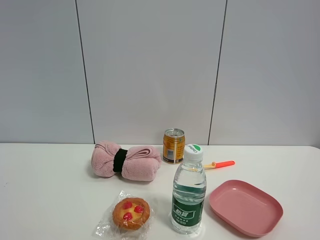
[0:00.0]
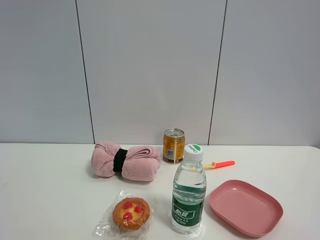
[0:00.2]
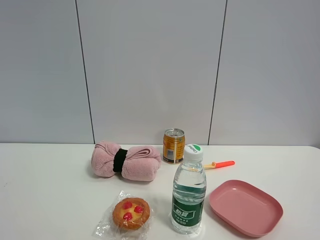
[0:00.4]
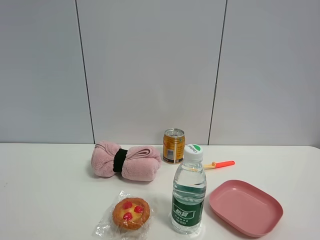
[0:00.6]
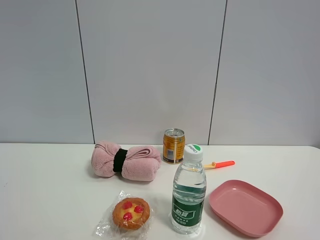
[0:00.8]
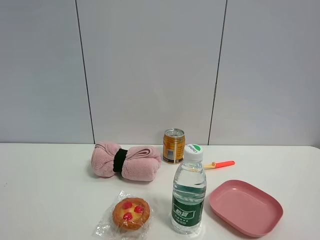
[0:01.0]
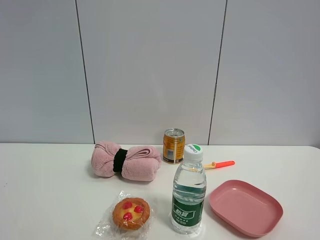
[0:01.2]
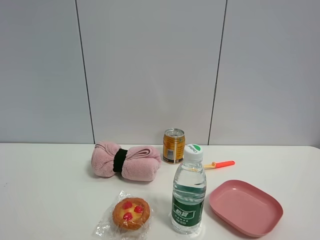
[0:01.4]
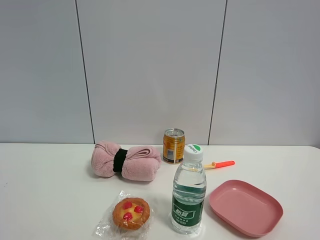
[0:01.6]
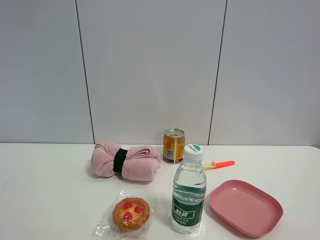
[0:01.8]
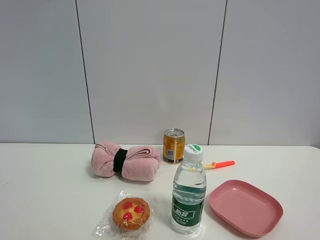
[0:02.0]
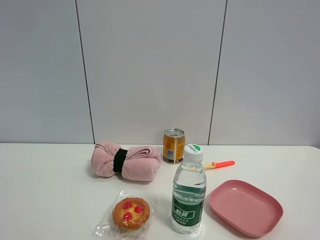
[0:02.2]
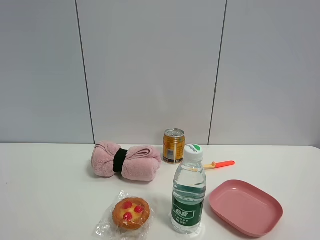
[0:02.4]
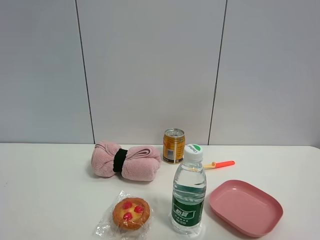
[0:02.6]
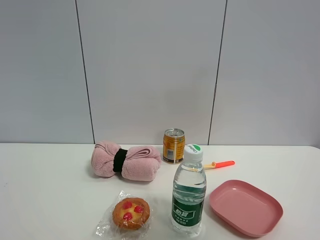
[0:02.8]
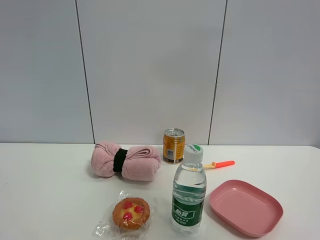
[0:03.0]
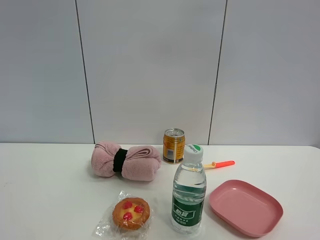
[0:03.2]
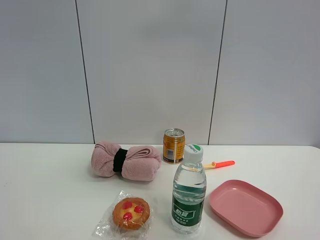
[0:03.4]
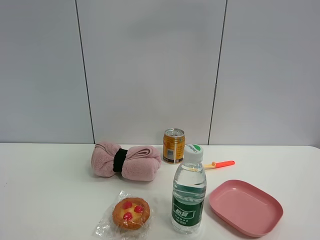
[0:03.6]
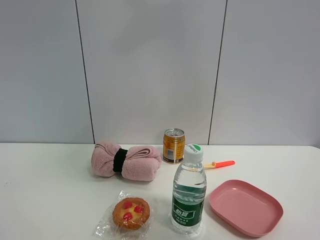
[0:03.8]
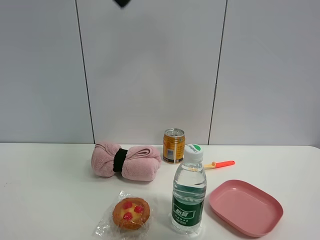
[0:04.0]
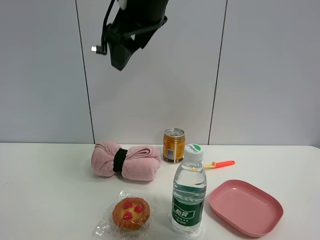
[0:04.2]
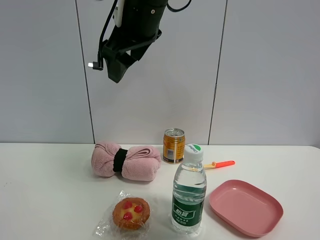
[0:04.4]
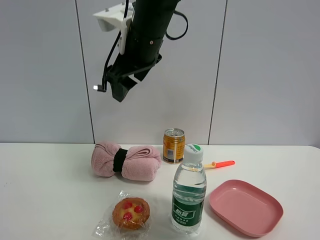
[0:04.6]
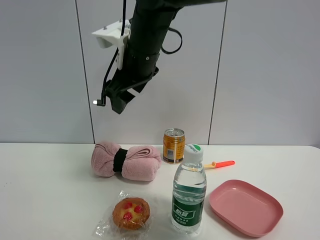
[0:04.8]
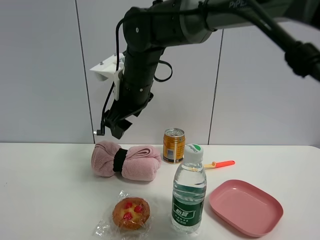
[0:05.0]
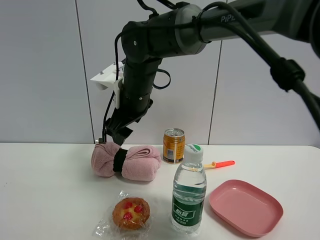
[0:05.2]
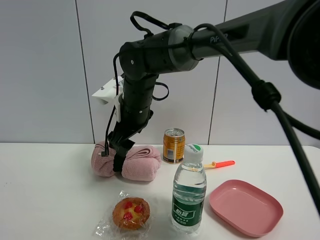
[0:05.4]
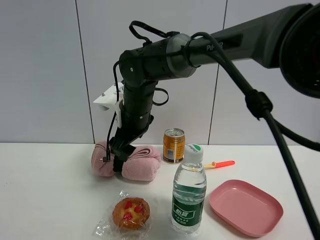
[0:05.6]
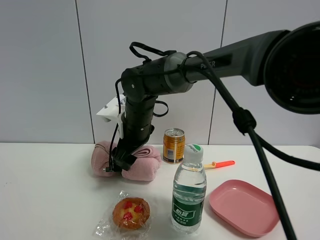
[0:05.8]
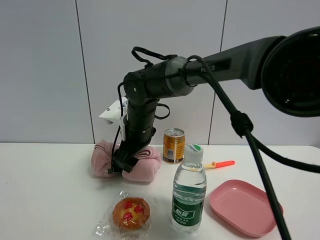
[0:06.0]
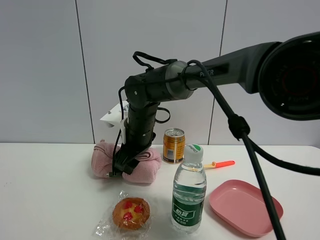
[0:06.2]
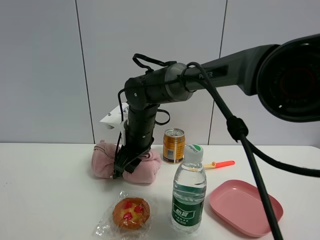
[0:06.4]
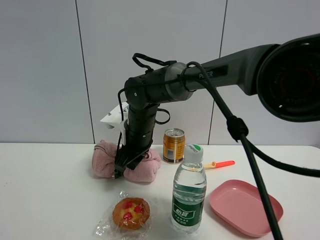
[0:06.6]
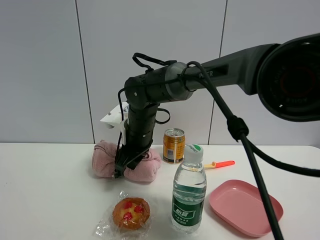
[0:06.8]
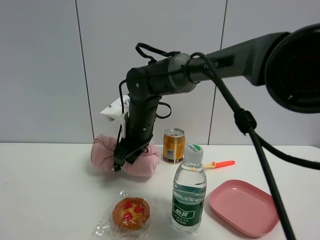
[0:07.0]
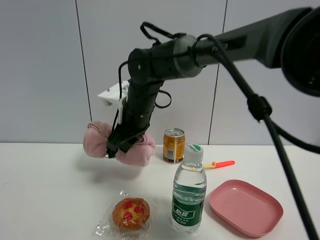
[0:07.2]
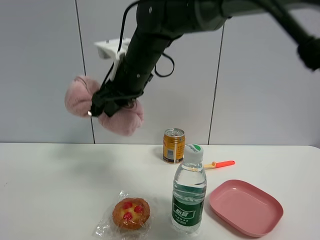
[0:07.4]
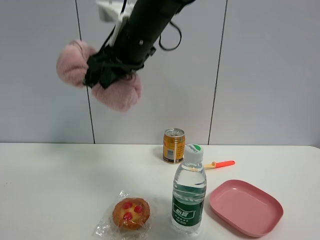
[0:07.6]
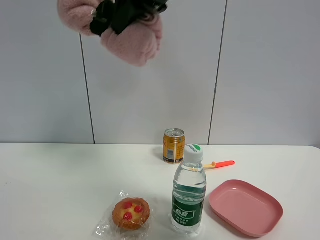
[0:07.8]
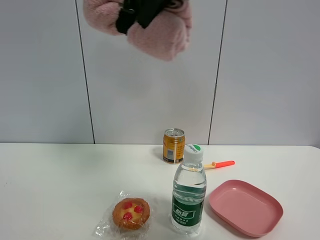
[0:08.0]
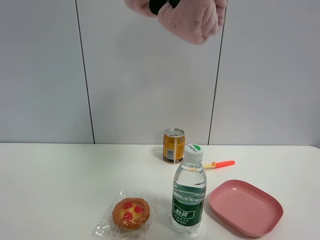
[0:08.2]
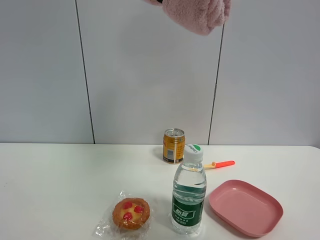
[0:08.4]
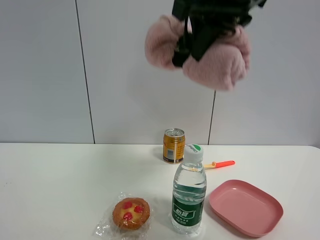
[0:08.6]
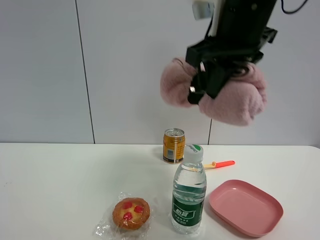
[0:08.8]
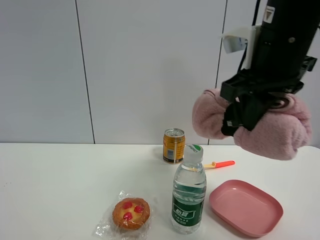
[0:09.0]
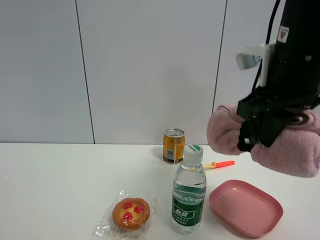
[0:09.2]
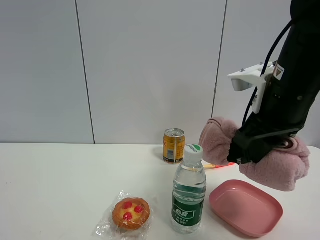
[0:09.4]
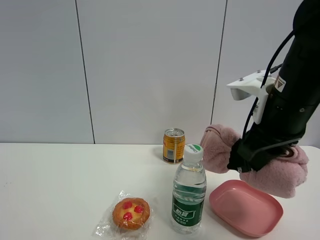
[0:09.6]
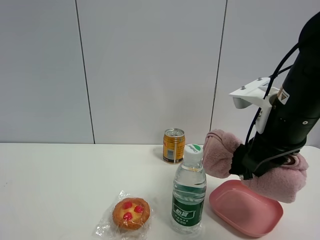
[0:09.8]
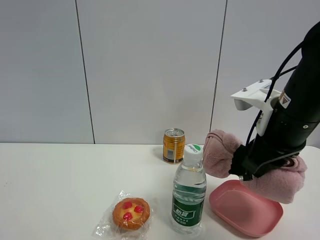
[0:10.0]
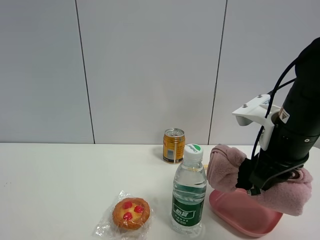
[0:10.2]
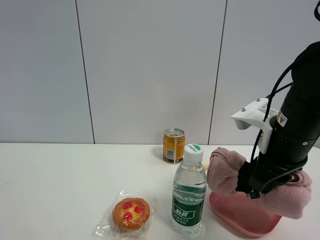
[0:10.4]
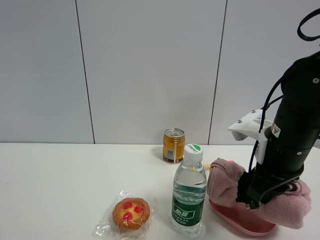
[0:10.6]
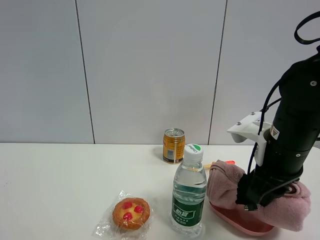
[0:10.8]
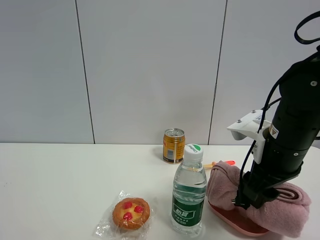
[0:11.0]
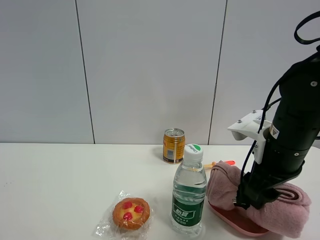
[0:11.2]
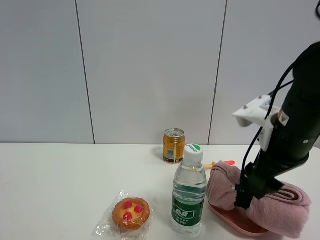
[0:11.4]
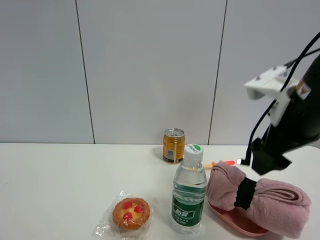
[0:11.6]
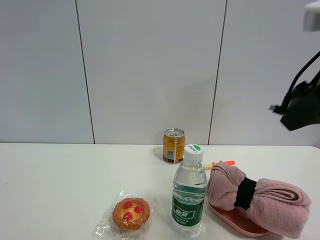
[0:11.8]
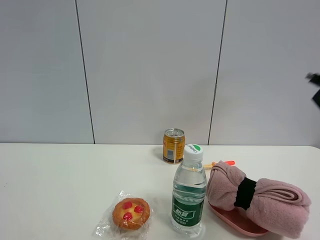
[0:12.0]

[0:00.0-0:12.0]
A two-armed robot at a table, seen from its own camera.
Task of the whole recording: the gripper move the object.
Step, 0:00.0 to 0:06.4: Grasp the pink towel with the right gripper.
Step, 0:06.6 to 0:11.4: Place the pink towel into the pink plate with the right gripper.
0:00.0 to 0:01.6: Neither gripper changes place.
0:01.6 to 0:03.0: The right gripper travels upward and forward by about 25 cm.
0:03.0 to 0:04.4: The right gripper shifts approximately 35 cm to the left, forward and downward.
0:04.4 to 0:06.0: The right gripper travels downward by roughly 20 cm.
0:06.0 to 0:07.6: The right gripper heads upward, covering roughly 20 cm, and closes up.
0:07.6 to 0:09.0: The right gripper travels to the right and backward by some 20 cm.
0:09.0 to 0:10.4: The right gripper heads downward, covering approximately 10 cm.
0:10.4 to 0:12.0: The right gripper moves upward, backward and to the right, some 20 cm, and opens its fingers.

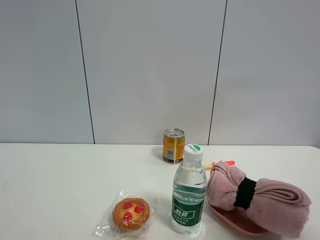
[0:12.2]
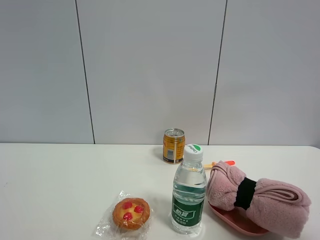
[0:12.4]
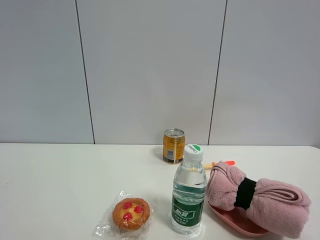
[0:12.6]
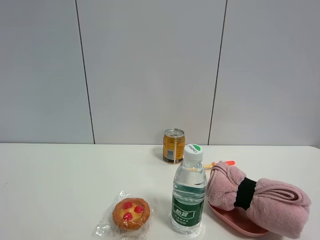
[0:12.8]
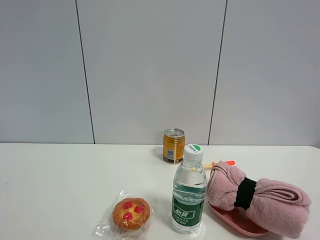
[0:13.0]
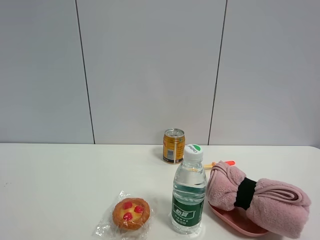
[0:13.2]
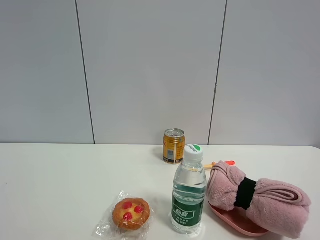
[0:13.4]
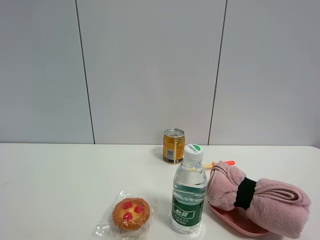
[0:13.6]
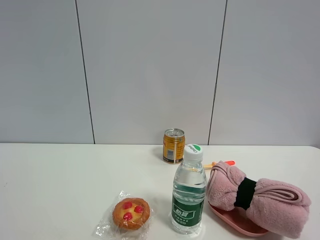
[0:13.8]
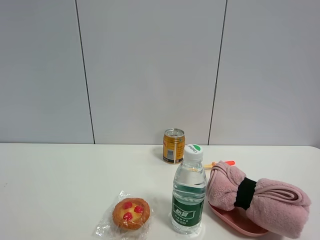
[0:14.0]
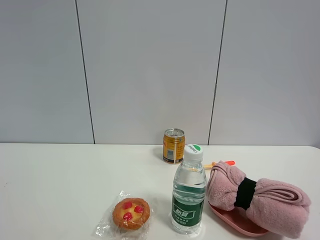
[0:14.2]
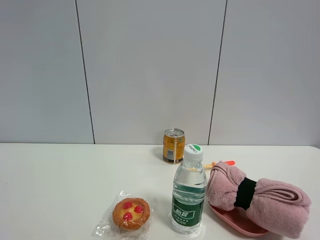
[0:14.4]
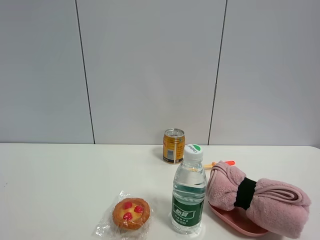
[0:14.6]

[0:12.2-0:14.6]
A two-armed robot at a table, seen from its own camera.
Task of the whole recording: the gripper move the object.
0:12.2 to 0:13.4: The right gripper goes about 15 cm backward and downward.
0:13.4 to 0:14.6: Both grippers stay put.

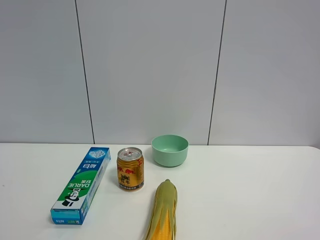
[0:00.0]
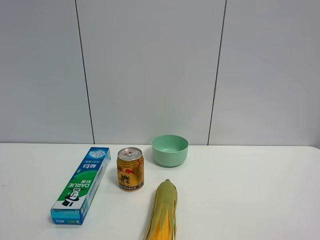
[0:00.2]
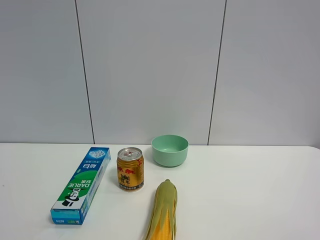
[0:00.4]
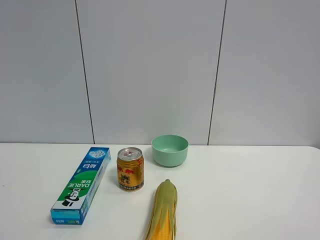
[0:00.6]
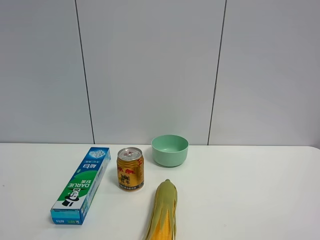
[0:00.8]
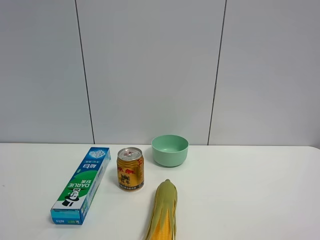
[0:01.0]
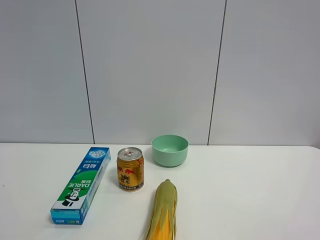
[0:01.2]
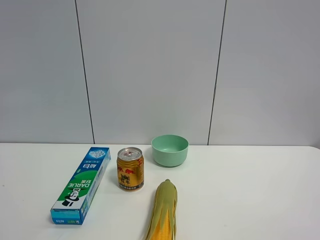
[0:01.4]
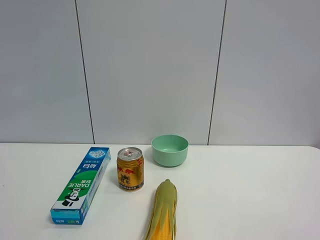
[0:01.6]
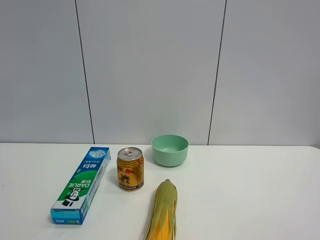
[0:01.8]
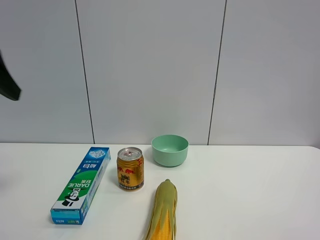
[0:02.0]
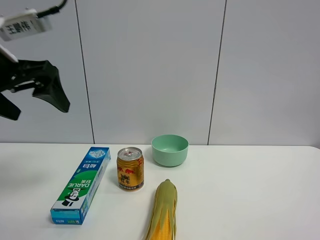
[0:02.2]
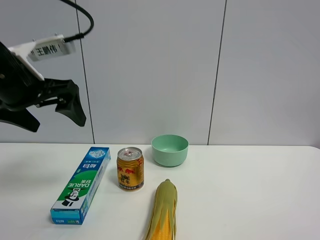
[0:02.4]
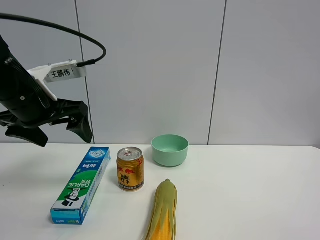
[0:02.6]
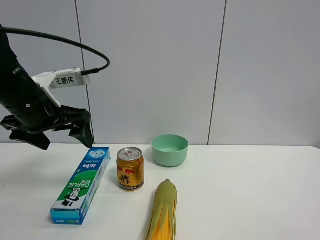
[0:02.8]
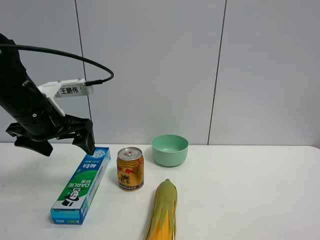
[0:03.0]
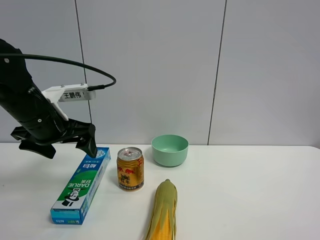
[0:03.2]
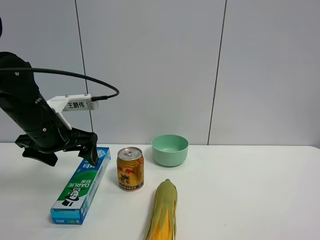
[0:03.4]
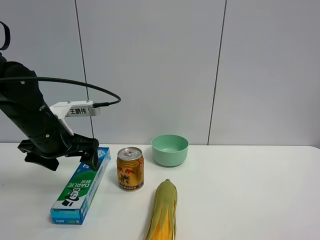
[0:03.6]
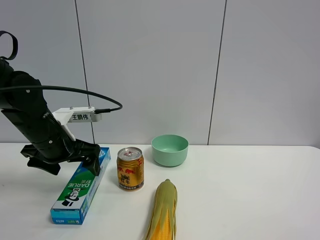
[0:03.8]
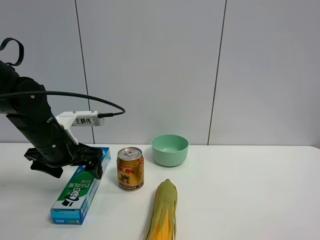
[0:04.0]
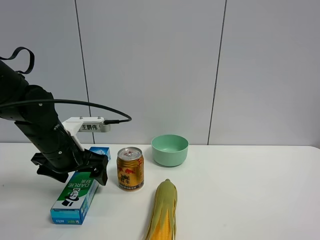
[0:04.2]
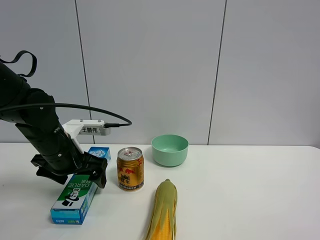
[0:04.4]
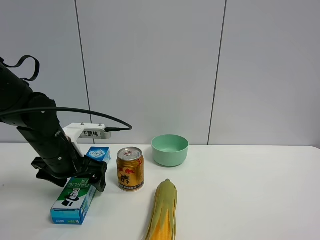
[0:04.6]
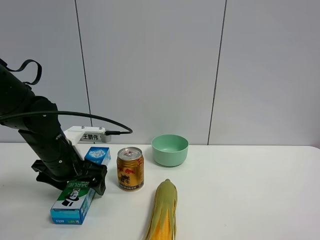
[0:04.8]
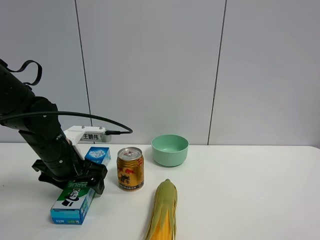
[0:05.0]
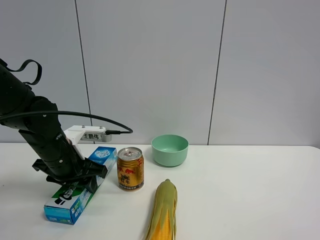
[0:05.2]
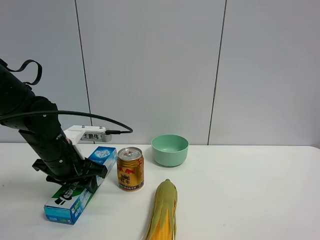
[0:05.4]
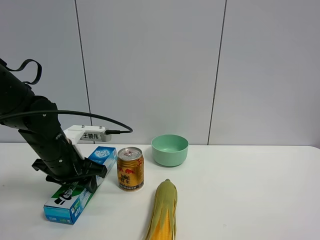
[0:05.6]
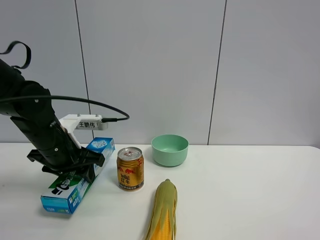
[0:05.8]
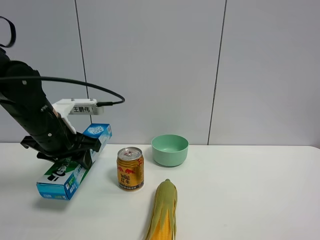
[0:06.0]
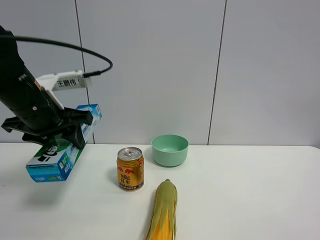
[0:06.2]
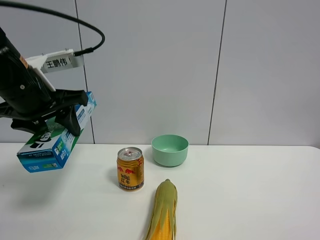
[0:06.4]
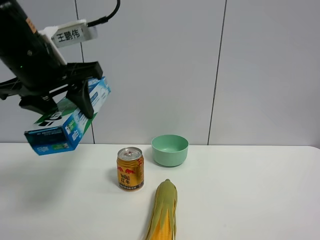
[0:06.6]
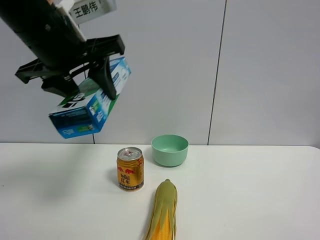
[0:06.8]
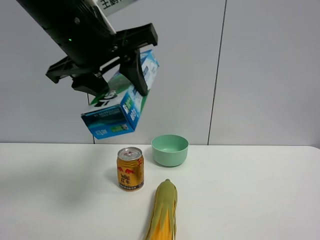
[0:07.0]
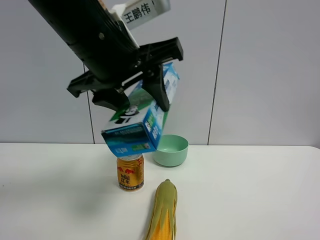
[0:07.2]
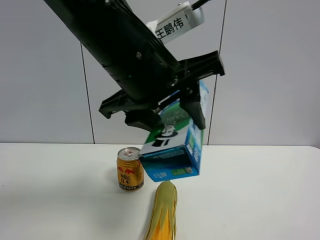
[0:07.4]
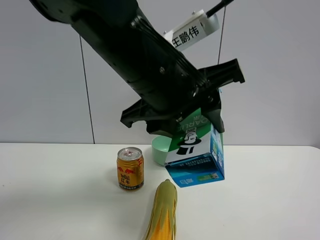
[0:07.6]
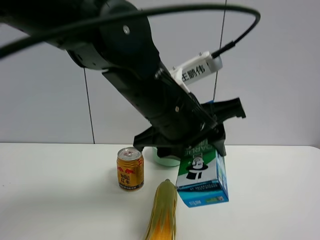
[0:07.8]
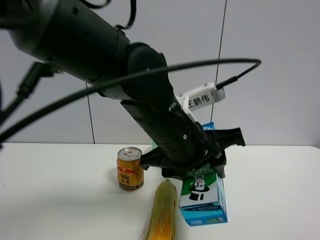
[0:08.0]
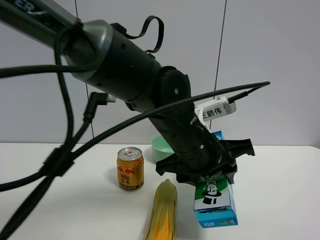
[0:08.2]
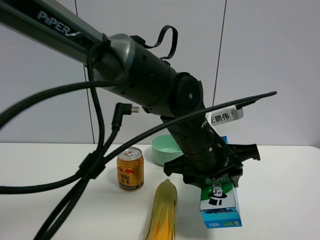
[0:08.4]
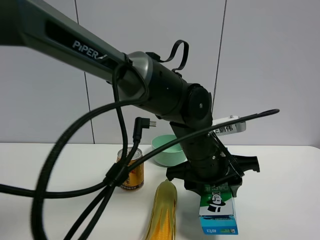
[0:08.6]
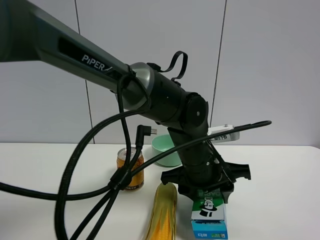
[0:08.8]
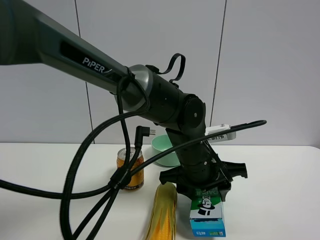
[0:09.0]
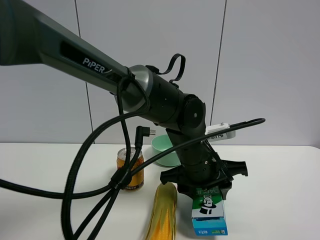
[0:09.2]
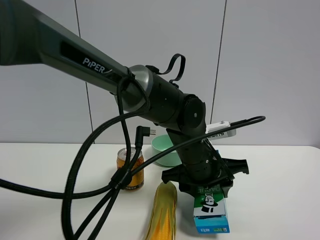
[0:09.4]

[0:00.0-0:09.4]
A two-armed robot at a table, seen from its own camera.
Task of the whole recording: the gripper move the object.
Step, 0:00.0 to 0:05.2: Grasp the toothpaste with the left gripper.
0:01.6 to 0:03.2: The left gripper travels forward, downward and to the right by some 30 cm.
0:03.2 to 0:04.8: The left gripper goes roughly 10 cm downward.
0:04.8 to 0:06.2: The left gripper is displaced upward by approximately 10 cm, and closes its fingers.
0:06.2 to 0:07.8: The left gripper travels to the right by about 20 cm.
0:07.8 to 0:09.4: The left gripper moves downward, forward and to the right, some 15 cm.
